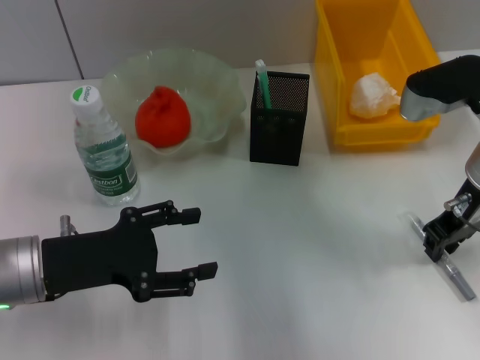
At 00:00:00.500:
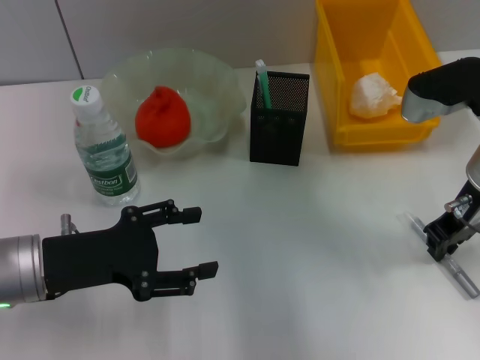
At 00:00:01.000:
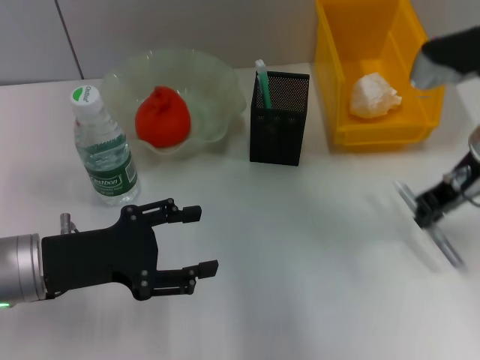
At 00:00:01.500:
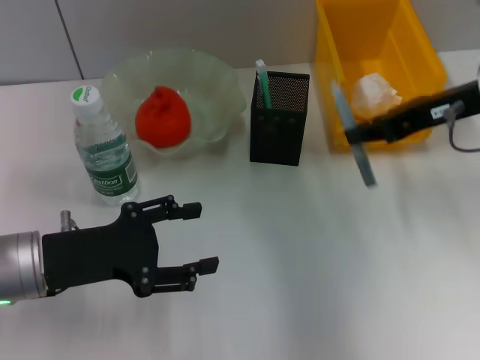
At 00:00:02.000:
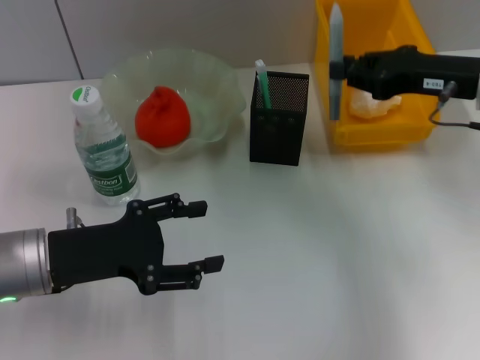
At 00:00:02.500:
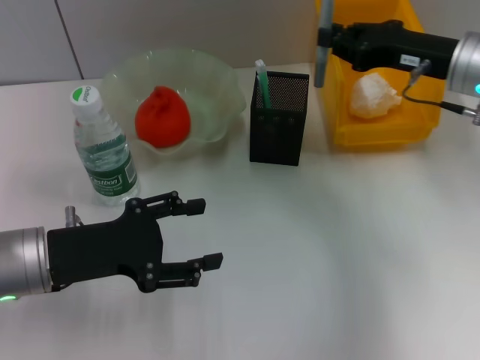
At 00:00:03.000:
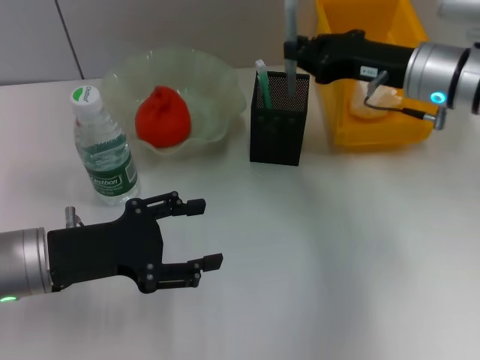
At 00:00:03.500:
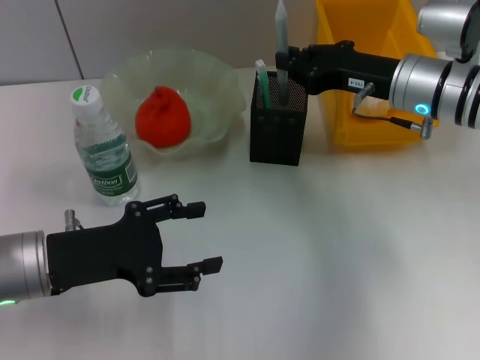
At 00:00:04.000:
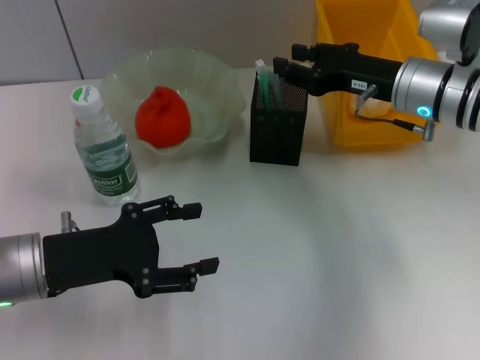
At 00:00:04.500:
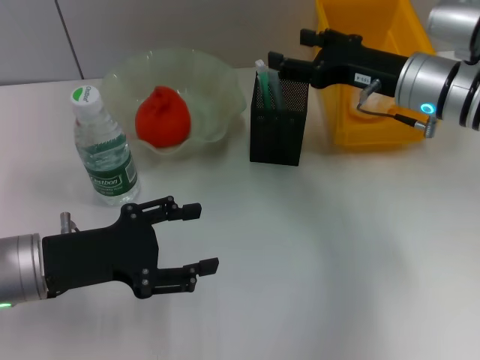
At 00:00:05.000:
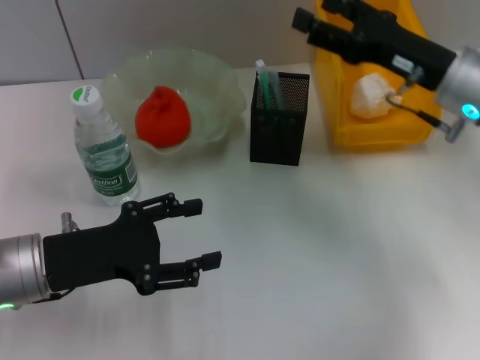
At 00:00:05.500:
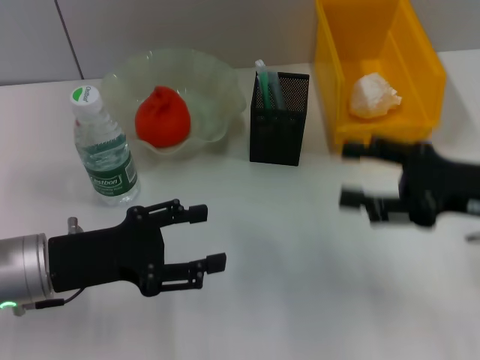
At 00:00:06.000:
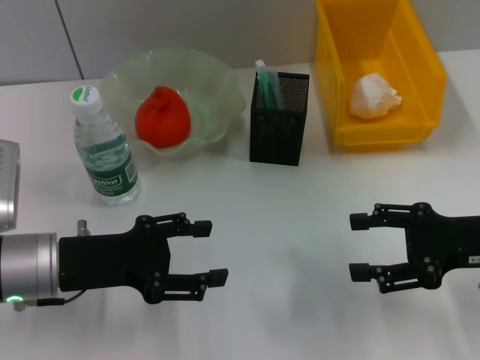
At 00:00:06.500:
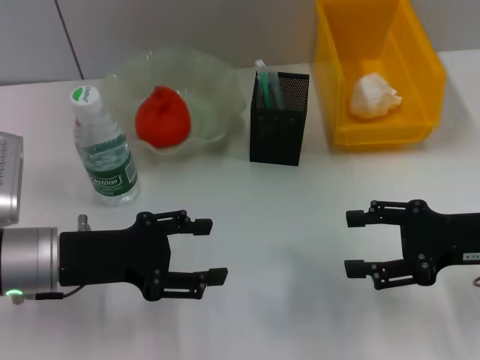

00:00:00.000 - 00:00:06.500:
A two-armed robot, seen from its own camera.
Step, 00:00:01.500 - 00:00:04.000: Place the gray glue into the pen holder with the right hand.
00:00:02.000 - 00:00:04.500: The right gripper shifts roughly 5 cm to the left, and opens its fingers.
00:00:04.500 - 00:00:06.500: The right gripper heads backward and to the right, covering roughly 15 cm.
